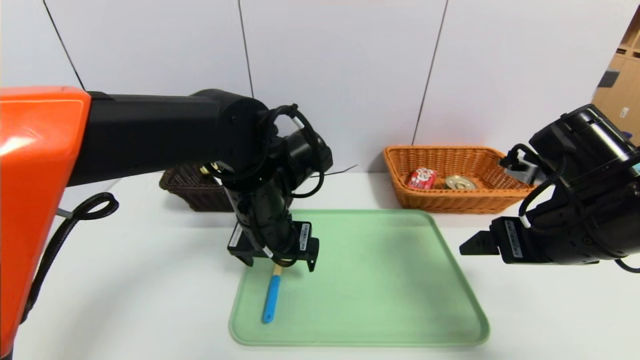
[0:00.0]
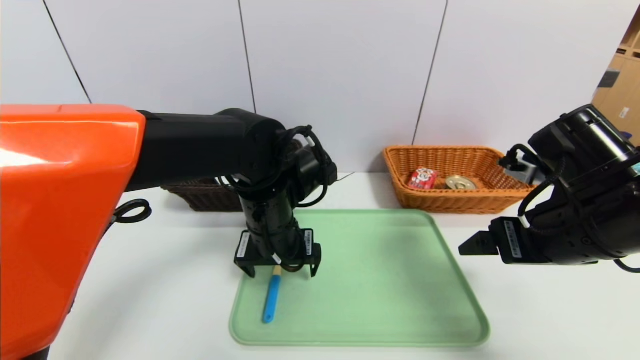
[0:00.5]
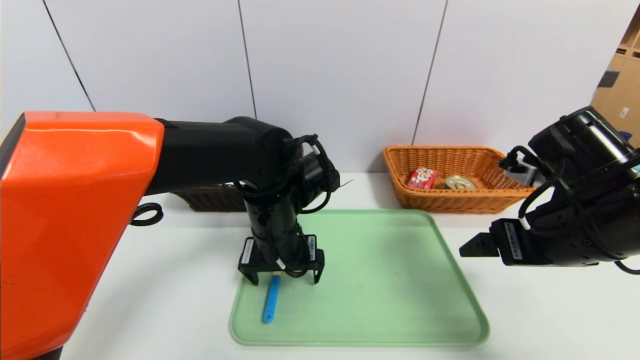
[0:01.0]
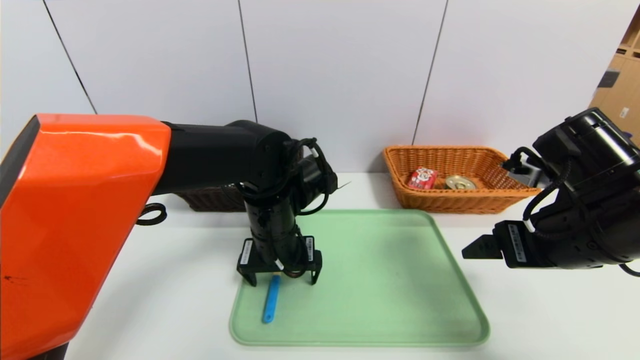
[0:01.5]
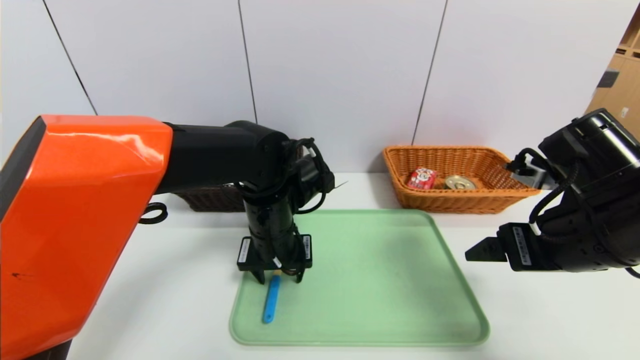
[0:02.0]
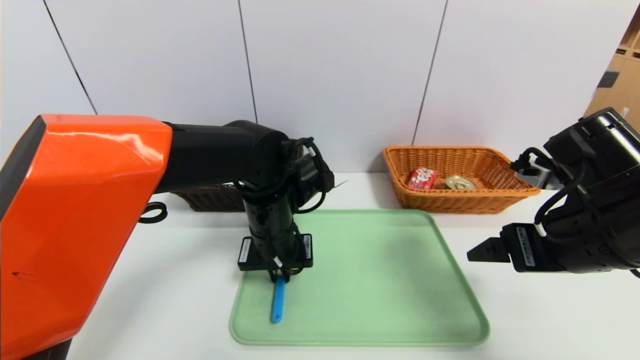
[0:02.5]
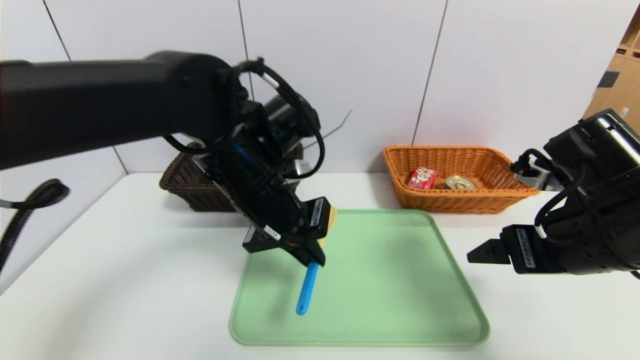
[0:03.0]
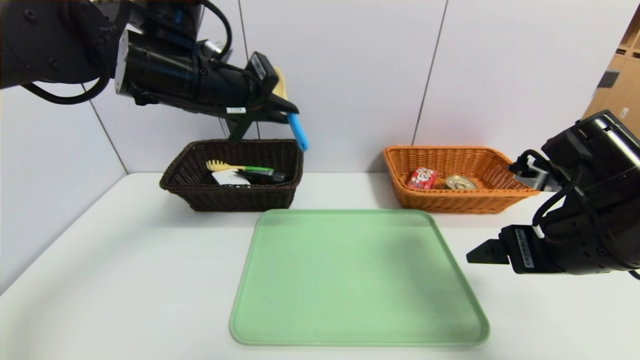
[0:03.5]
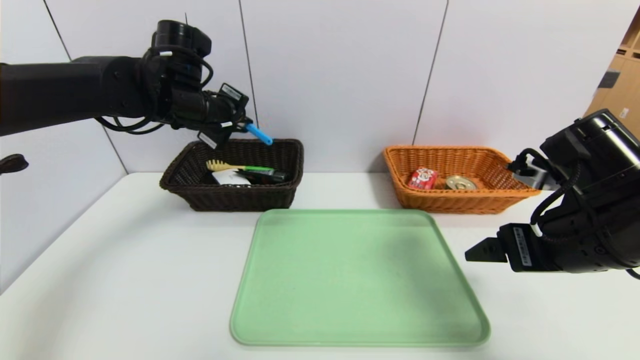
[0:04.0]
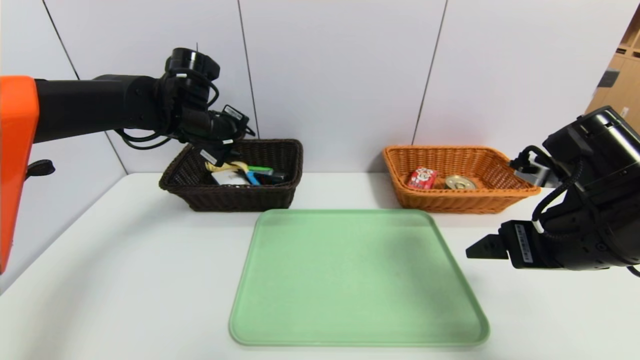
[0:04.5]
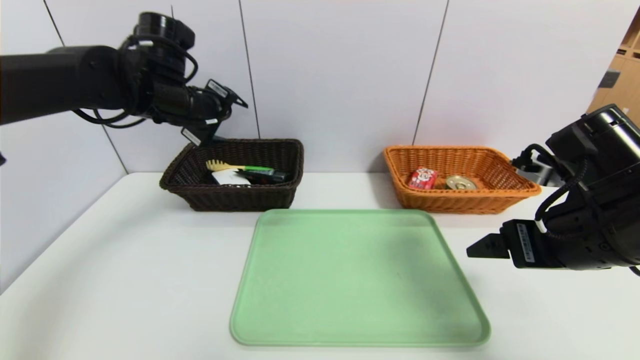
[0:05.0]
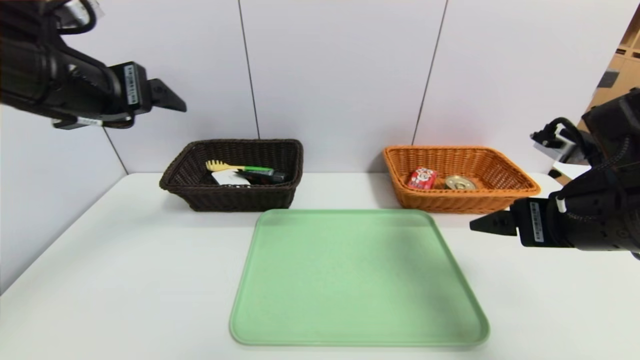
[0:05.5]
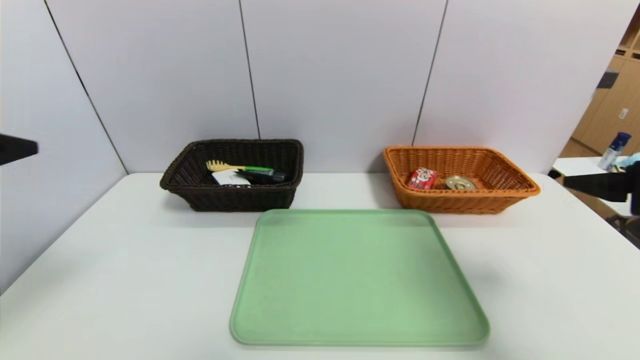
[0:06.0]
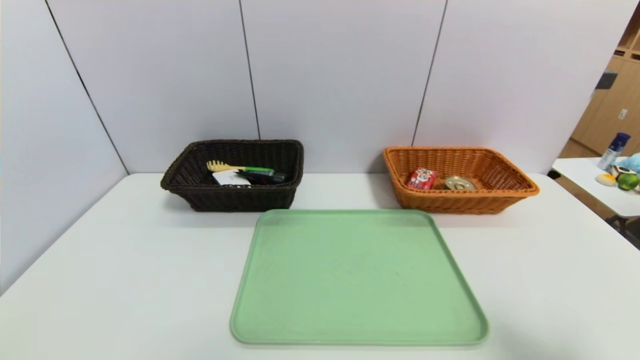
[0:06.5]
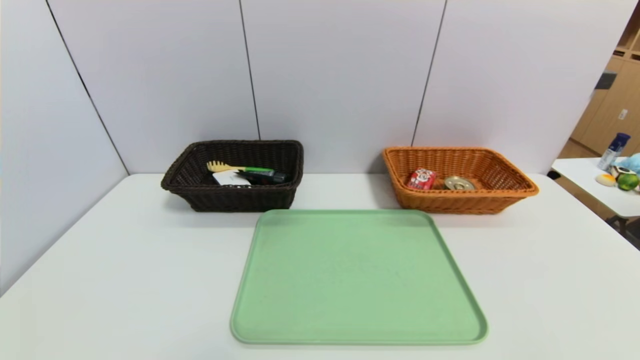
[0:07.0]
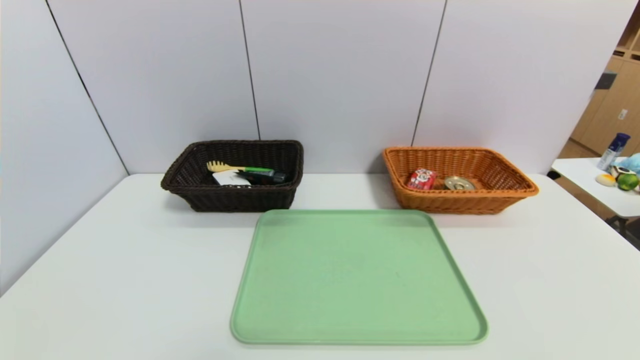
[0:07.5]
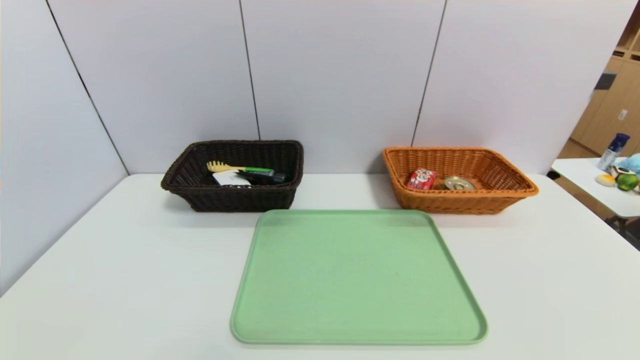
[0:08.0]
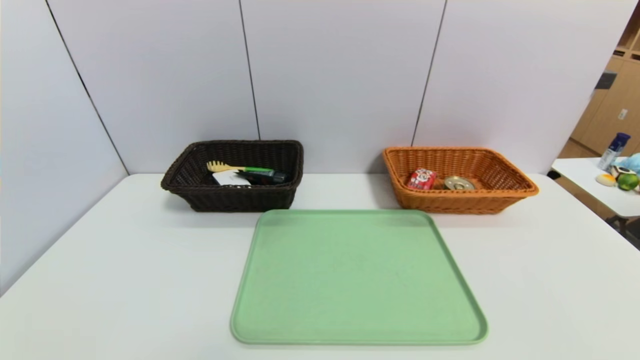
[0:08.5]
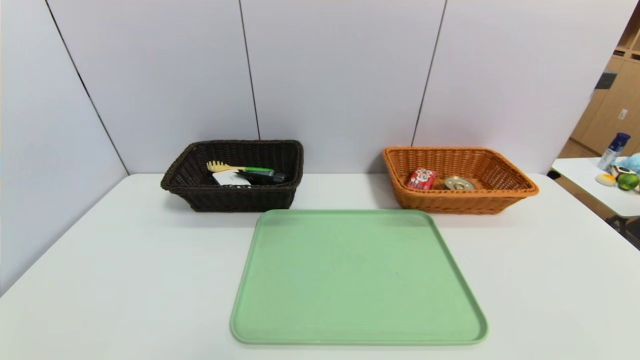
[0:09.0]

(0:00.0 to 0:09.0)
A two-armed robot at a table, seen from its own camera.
Task of the whole recording: place the food in the right basket with the right gripper, and place the non food items in the left basket with the left gripper.
Step, 0:00.0 - 0:05.0: Grasp the spoon and put it in the left basket.
0:00.0 - 0:02.0: The left gripper closes.
0:02.0 - 0:04.5: The left gripper goes some 20 cm to the left, forward and upward, and closes, then reopens.
0:04.5 - 0:07.0: The right gripper is displaced backward and to the right by approximately 25 cm; the left gripper travels backward by approximately 50 cm, and opens.

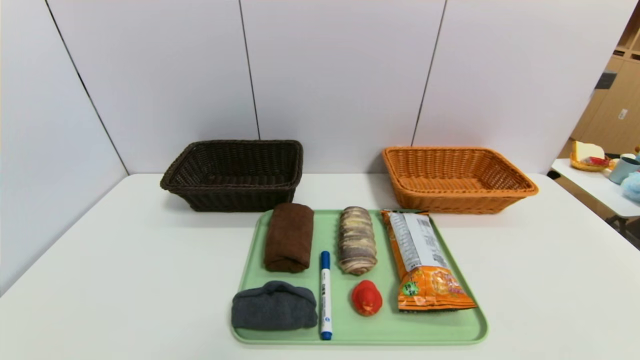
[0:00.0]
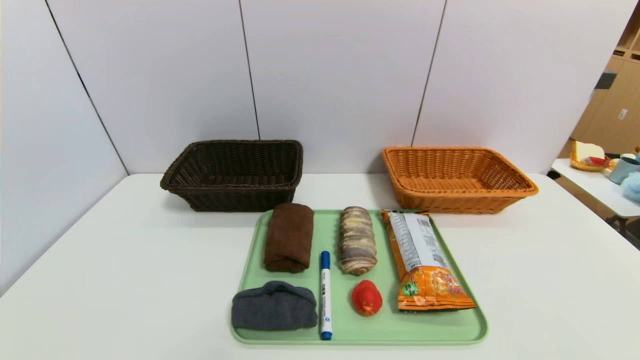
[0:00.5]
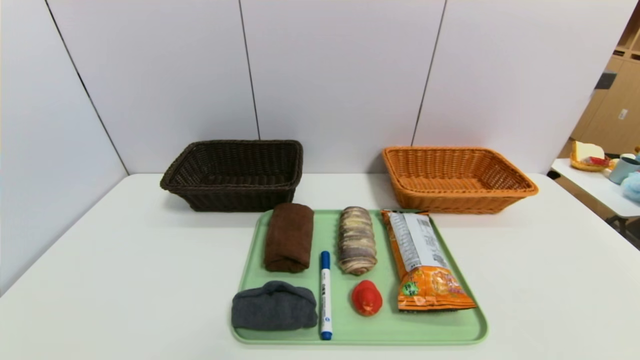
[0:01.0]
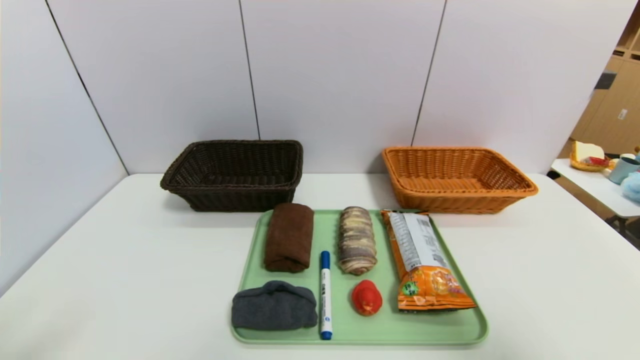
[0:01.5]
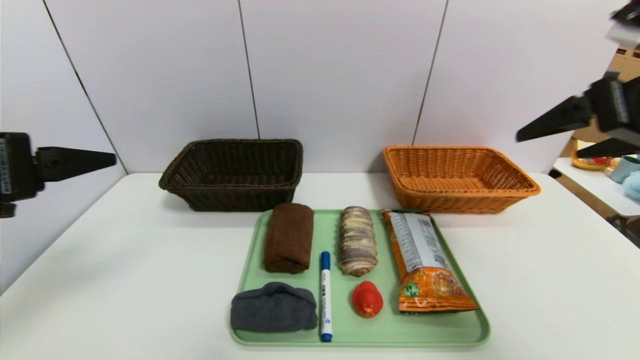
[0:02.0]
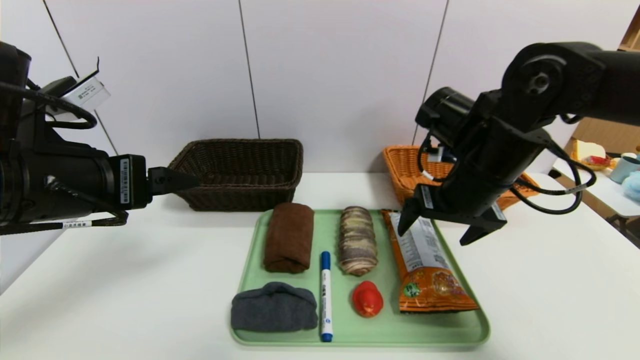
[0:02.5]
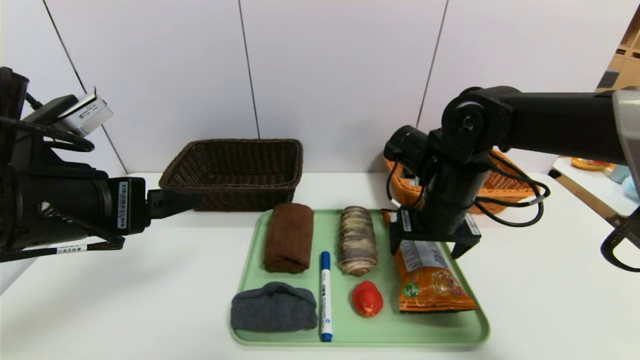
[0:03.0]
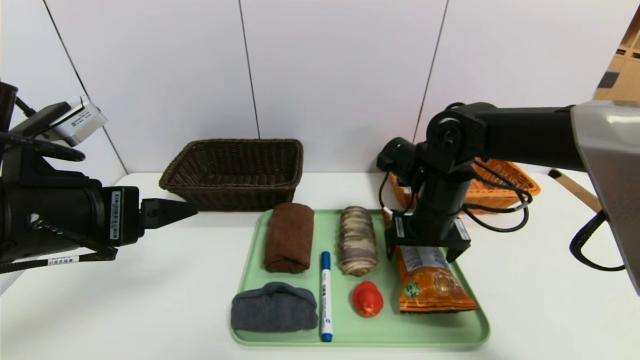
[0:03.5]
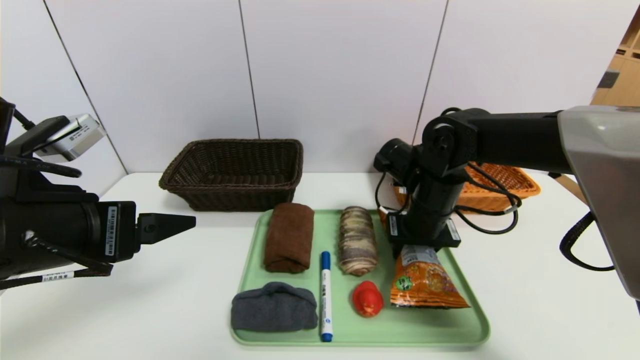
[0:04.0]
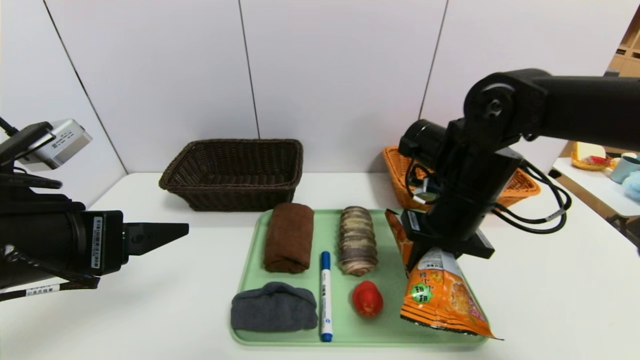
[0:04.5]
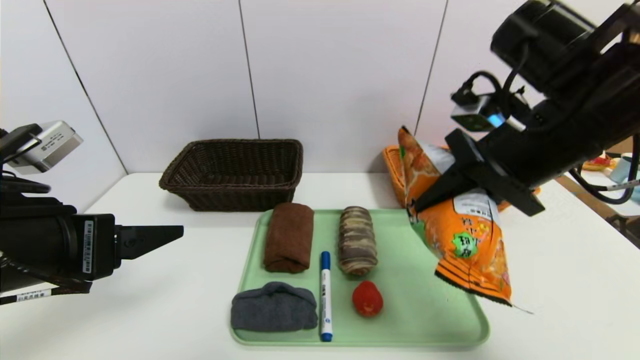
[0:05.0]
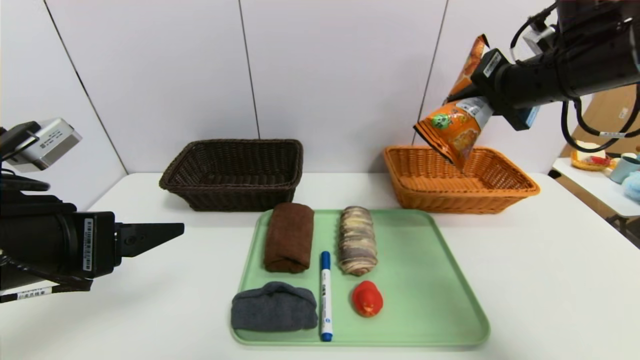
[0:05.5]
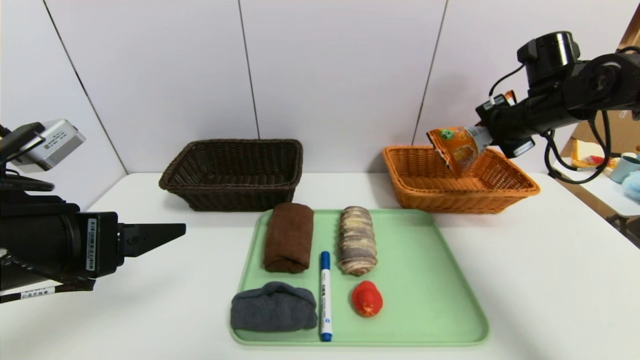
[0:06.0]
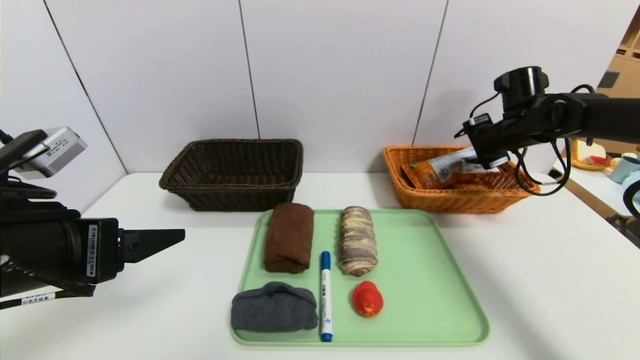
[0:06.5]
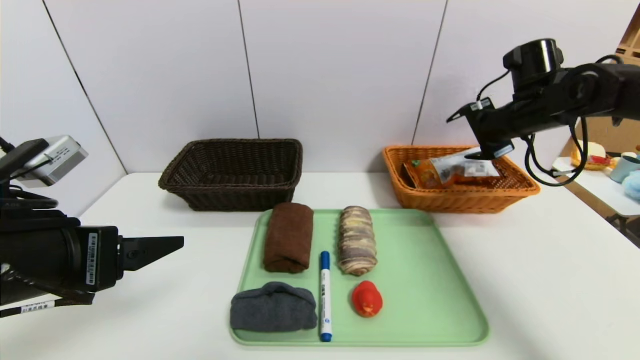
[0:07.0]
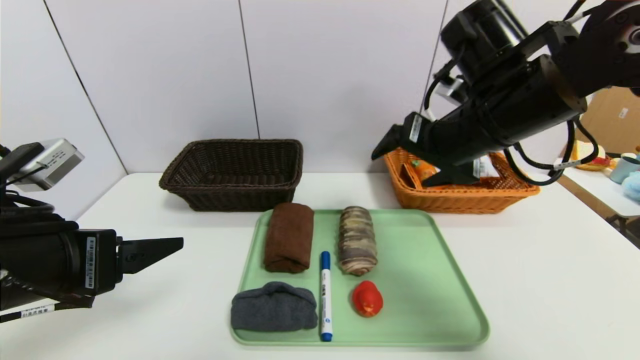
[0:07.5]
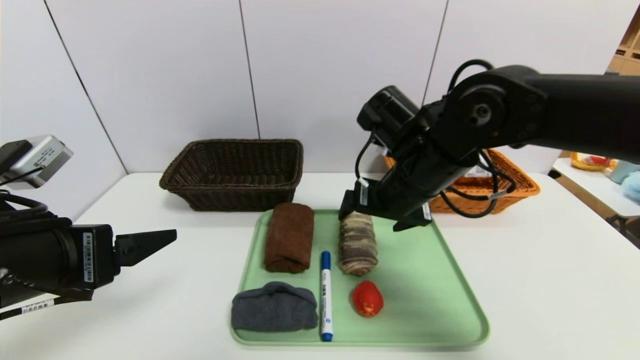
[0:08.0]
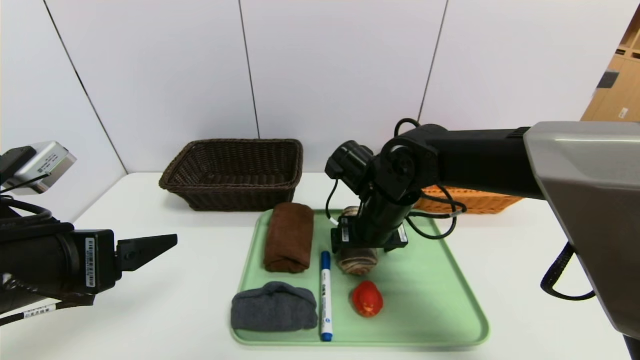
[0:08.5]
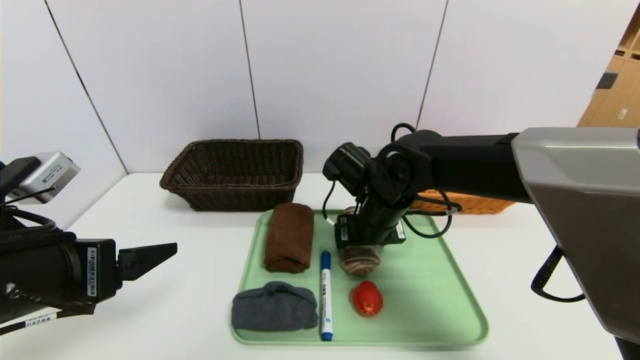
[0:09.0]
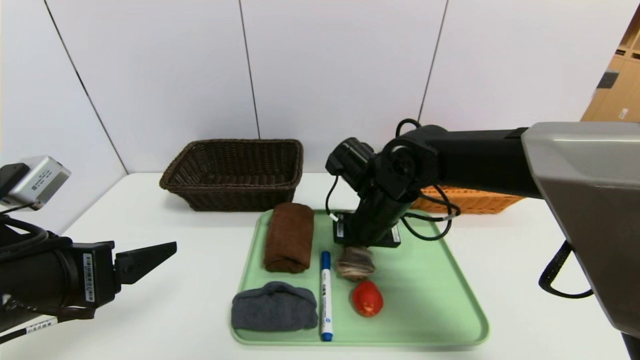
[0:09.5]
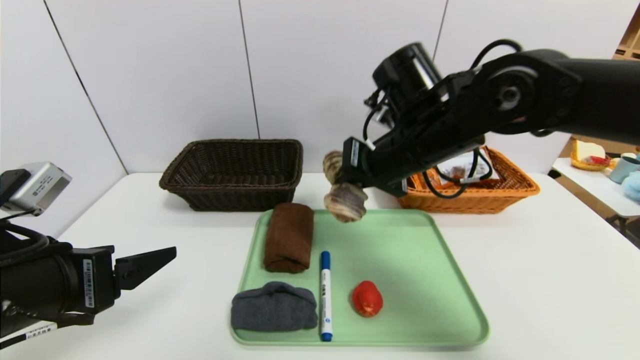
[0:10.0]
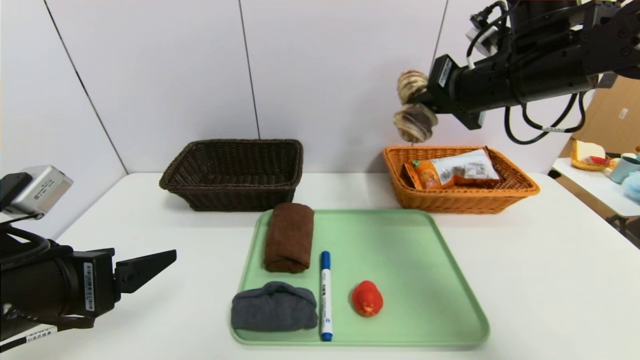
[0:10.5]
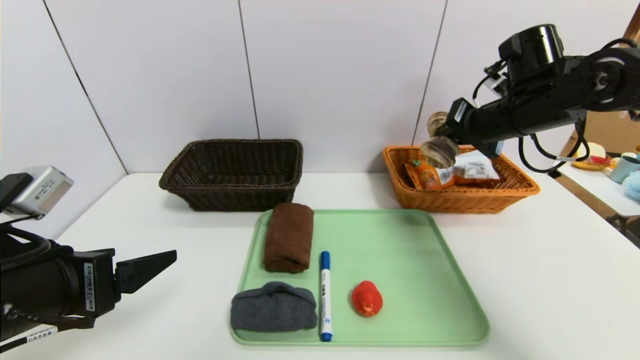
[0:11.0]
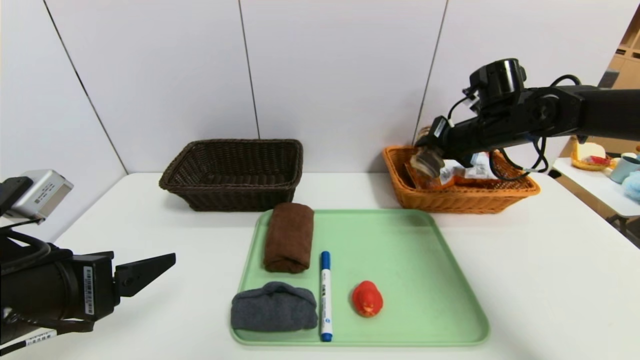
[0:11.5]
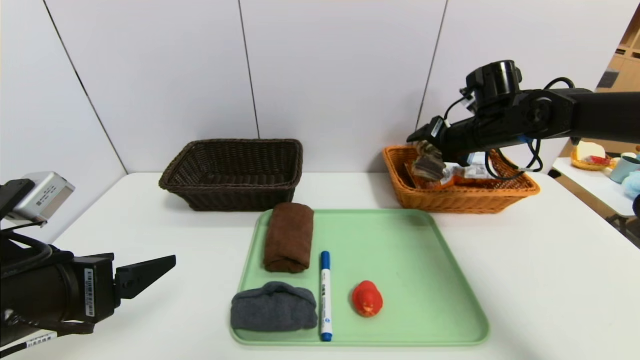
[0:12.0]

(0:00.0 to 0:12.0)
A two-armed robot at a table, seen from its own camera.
Task of the whole recording: place the food in the right basket with the right gripper, and place the non food items in the left basket with the left gripper.
Step, 0:00.0 - 0:06.5: Grasp the cookie and put it in the right basket.
0:00.0 - 0:02.0: Both grippers move upward and forward, approximately 35 cm.
0:02.0 - 0:04.0: The left gripper is displaced downward by approximately 5 cm, while the right gripper goes some 25 cm downward, to the left and forward, and closes its fingers.
0:04.0 - 0:06.0: The right gripper shifts about 20 cm to the right and upward.
0:06.0 - 0:08.0: The right gripper shifts approximately 25 cm to the left and backward, and opens.
0:08.0 - 0:10.0: The right gripper reaches roughly 10 cm downward, then returns, and closes its fingers.
0:10.0 - 0:12.0: The right gripper travels to the right and forward by some 20 cm, and opens up.
